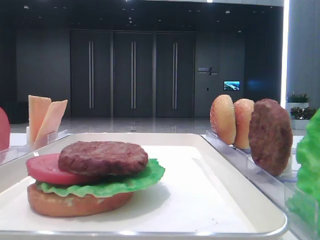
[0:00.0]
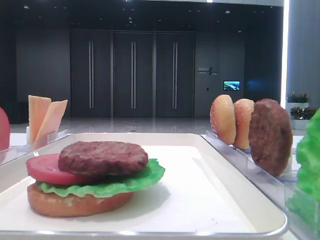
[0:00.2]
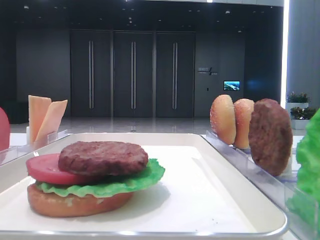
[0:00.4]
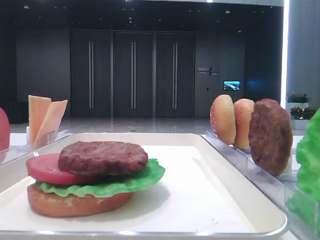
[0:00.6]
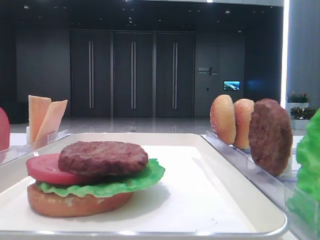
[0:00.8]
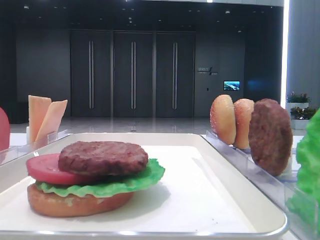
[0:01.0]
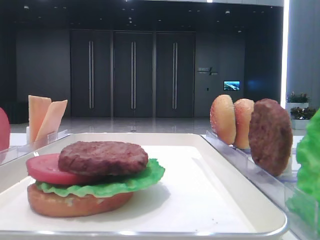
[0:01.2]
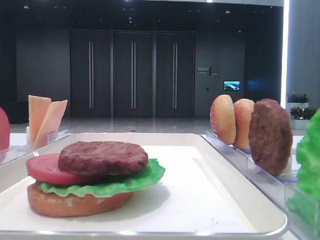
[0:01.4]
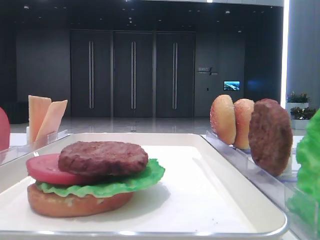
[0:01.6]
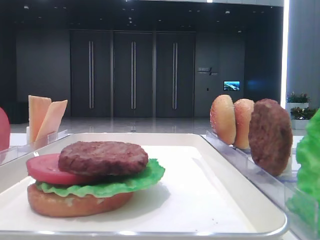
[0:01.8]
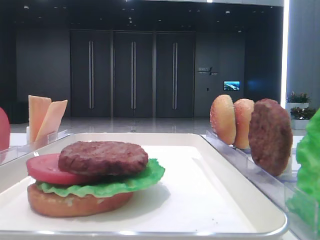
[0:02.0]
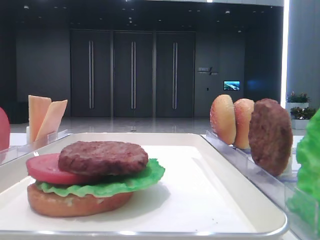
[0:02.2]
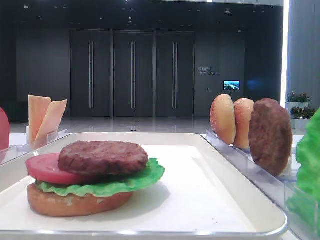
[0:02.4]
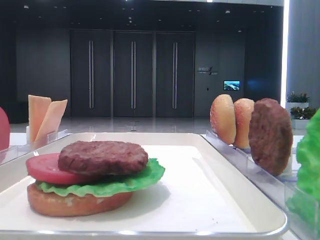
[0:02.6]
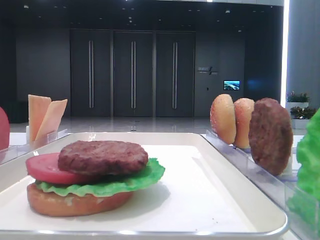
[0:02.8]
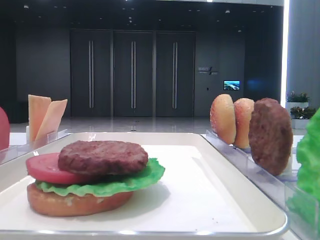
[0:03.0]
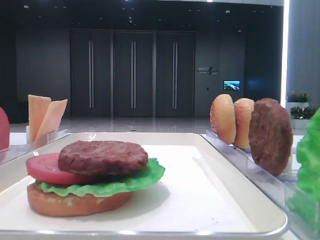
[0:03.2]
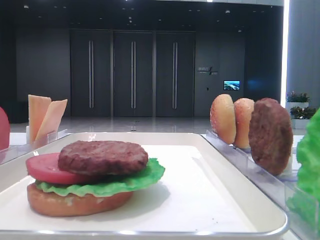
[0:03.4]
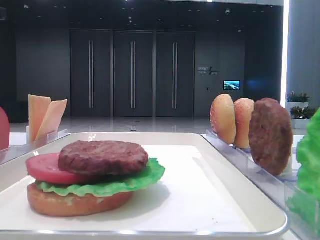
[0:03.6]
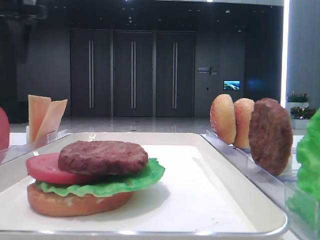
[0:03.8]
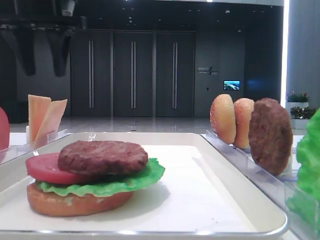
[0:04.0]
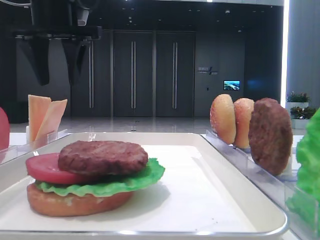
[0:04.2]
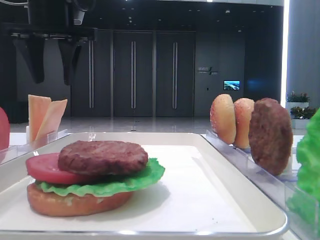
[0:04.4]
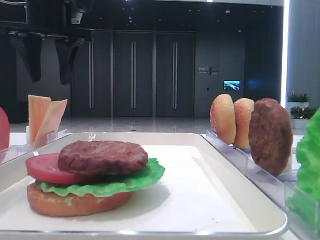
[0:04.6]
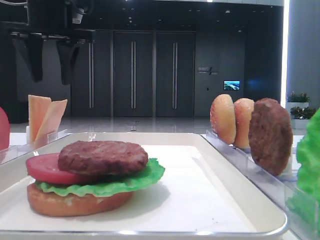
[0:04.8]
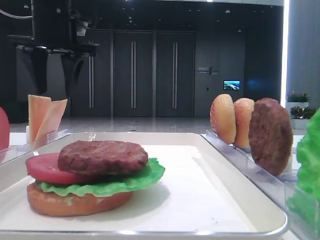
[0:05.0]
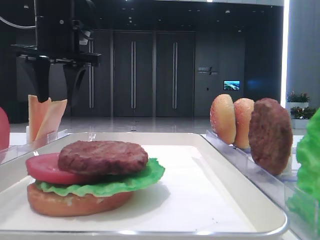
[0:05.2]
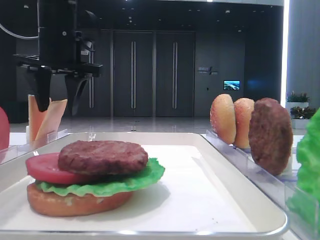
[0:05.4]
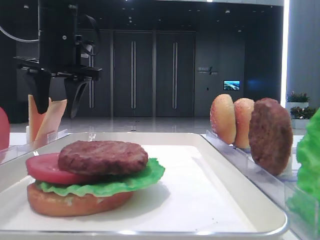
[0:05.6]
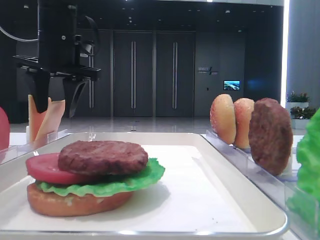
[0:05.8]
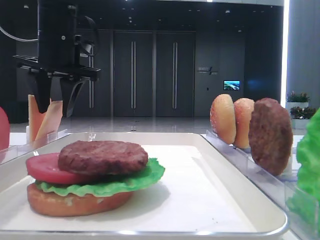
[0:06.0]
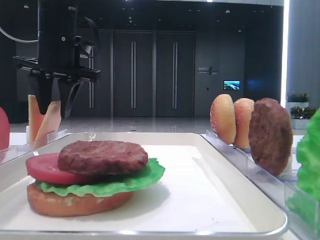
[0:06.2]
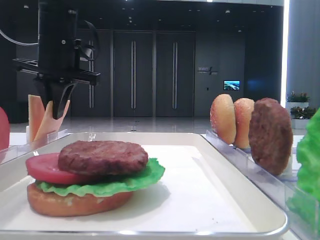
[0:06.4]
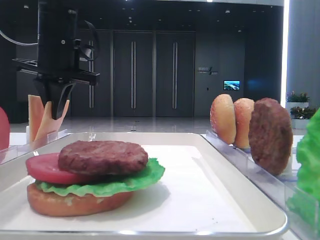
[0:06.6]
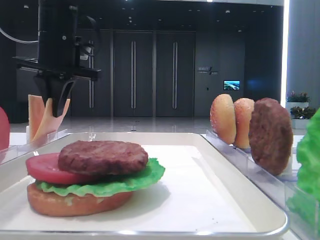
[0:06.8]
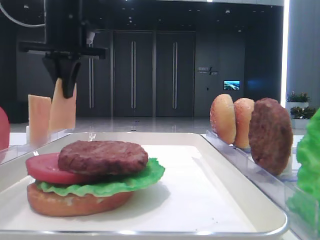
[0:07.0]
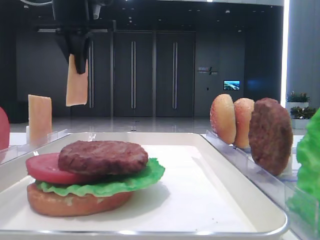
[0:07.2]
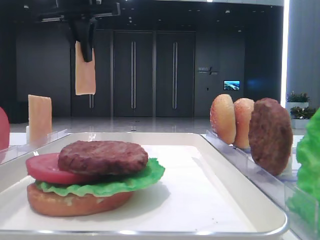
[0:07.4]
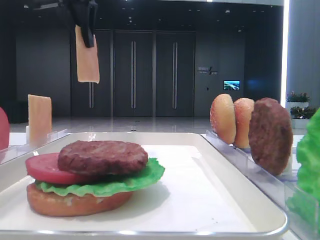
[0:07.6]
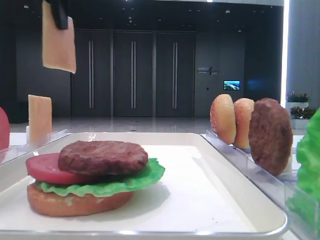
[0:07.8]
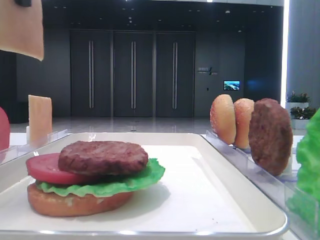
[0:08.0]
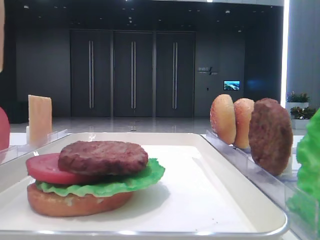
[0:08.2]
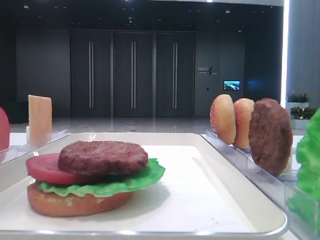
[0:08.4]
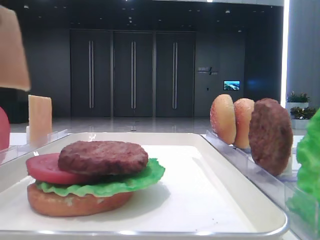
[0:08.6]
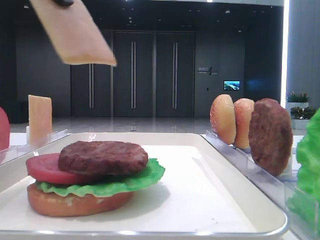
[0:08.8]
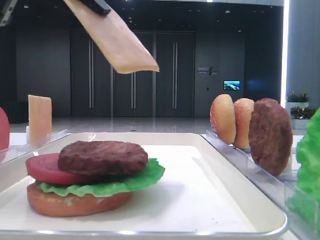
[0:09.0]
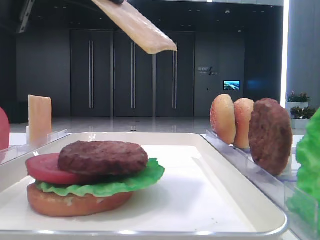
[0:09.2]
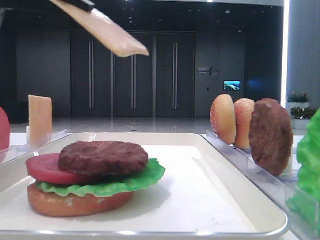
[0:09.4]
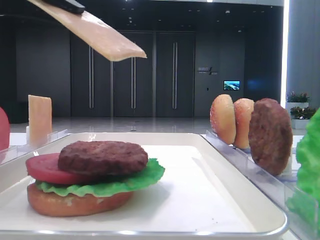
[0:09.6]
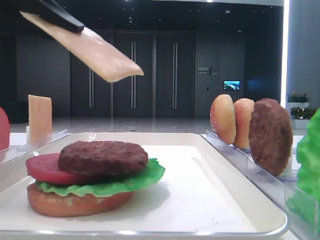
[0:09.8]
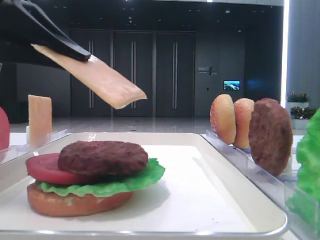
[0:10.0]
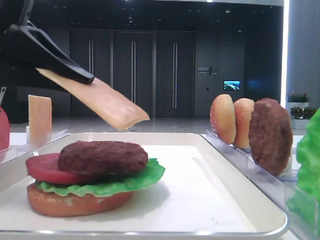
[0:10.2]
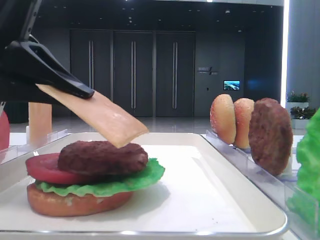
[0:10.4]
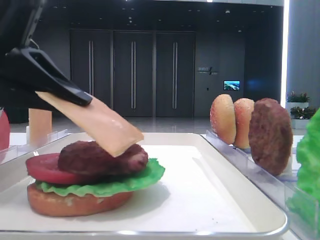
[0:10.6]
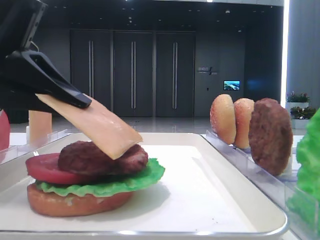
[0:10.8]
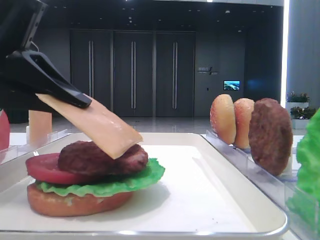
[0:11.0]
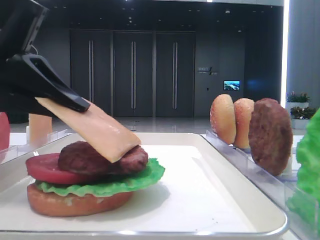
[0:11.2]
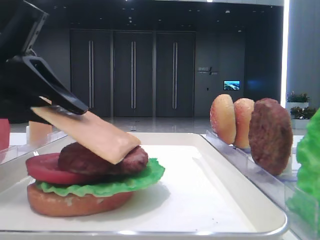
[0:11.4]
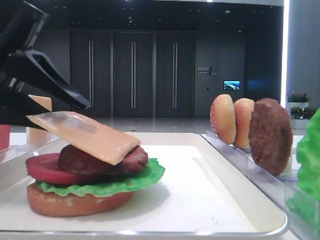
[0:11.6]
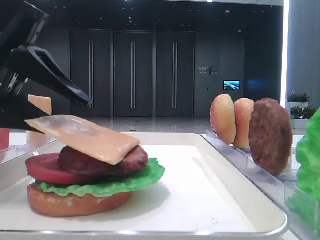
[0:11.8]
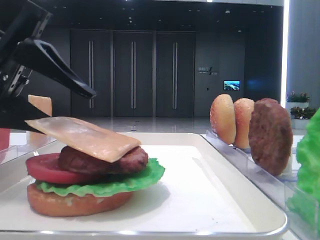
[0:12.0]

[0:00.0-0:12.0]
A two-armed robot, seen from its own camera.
Step, 0:00.0 to 0:06.6: Pick up the cheese slice with the left hand.
0:01.6 to 0:03.0: The left gripper travels forward by some 40 cm.
0:03.0 to 0:04.4: The left gripper goes approximately 15 cm to the right.
0:04.4 to 0:06.0: The left gripper travels downward by about 5 cm.
0:06.0 to 0:07.6: The left gripper goes roughly 10 cm upward, and closes up.
0:07.6 to 0:09.0: The left gripper is displaced backward by roughly 20 cm.
0:09.0 to 0:10.4: The left gripper shifts roughly 10 cm downward.
0:10.4 to 0:12.0: The left gripper opens.

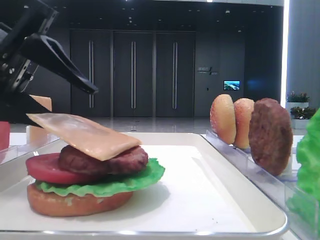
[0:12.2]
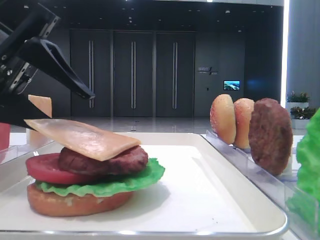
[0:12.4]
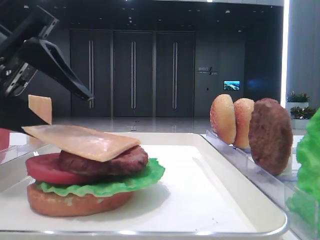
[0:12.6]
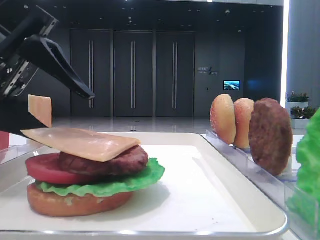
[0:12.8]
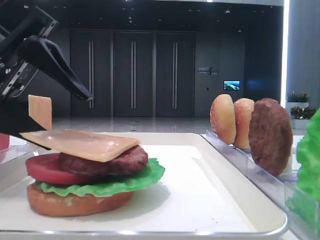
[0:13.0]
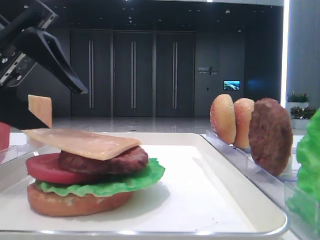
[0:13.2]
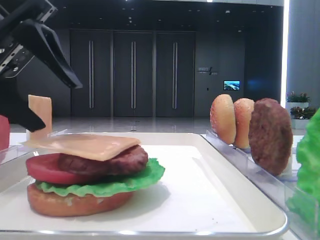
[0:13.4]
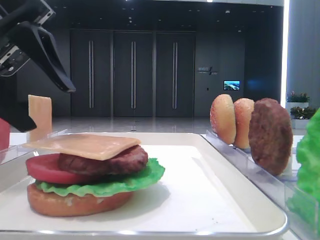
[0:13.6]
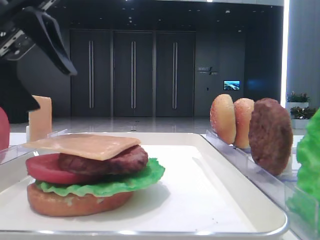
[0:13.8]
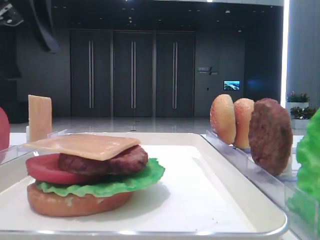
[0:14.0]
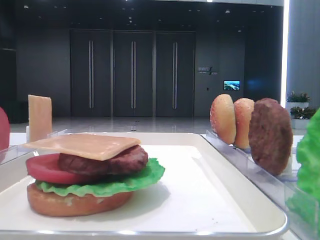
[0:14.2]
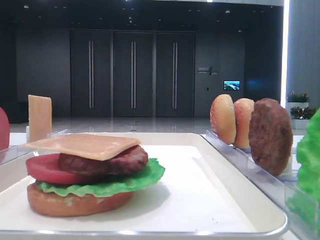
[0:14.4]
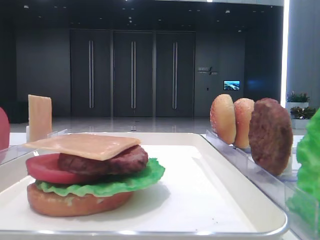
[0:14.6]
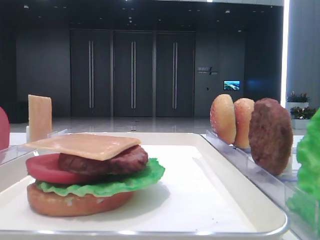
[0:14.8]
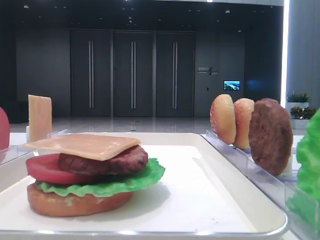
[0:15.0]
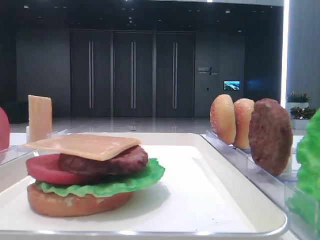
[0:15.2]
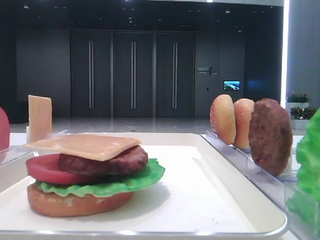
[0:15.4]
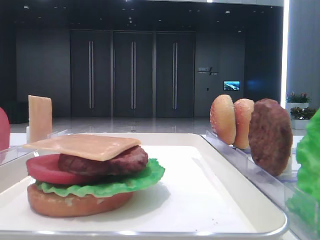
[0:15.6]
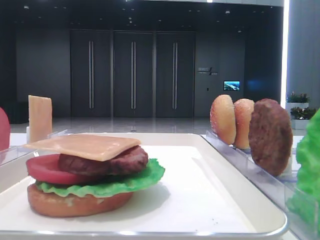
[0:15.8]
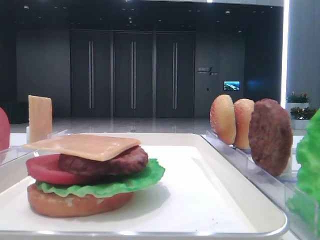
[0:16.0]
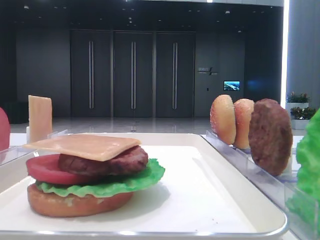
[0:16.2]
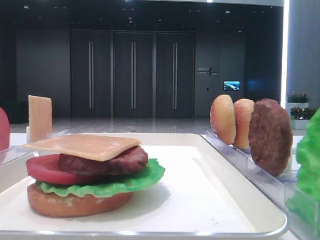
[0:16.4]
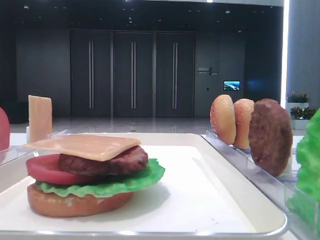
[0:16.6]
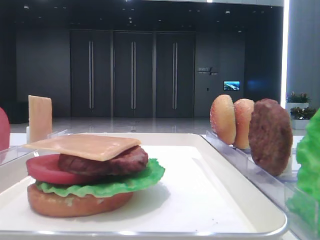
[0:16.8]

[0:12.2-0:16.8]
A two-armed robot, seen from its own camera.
0:12.2 to 0:13.8: The left gripper heads upward, covering about 5 cm.
0:13.8 to 0:15.2: The left gripper goes roughly 20 cm to the left, upward and backward.

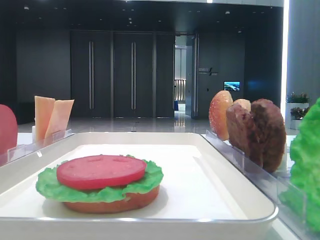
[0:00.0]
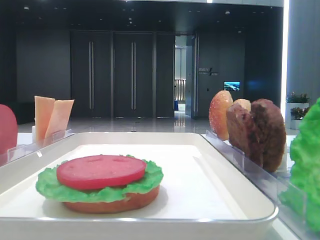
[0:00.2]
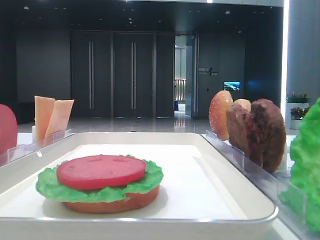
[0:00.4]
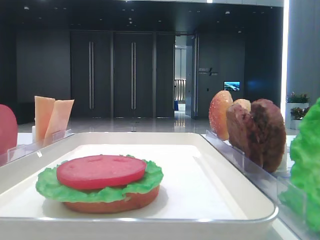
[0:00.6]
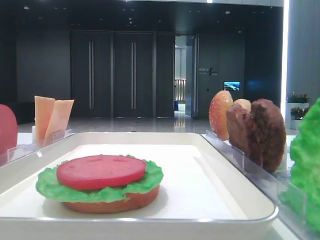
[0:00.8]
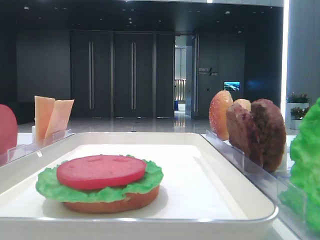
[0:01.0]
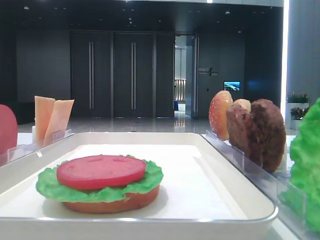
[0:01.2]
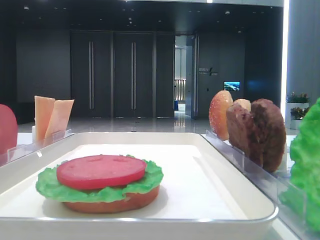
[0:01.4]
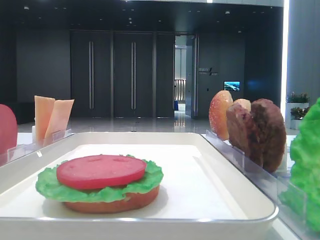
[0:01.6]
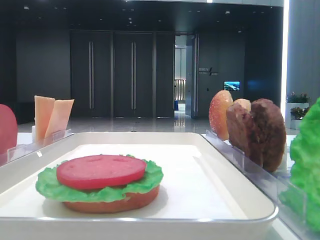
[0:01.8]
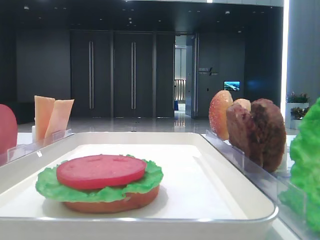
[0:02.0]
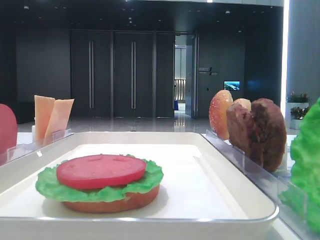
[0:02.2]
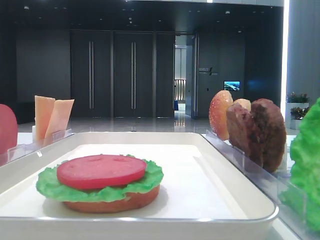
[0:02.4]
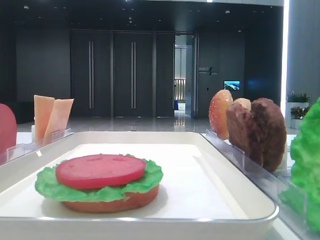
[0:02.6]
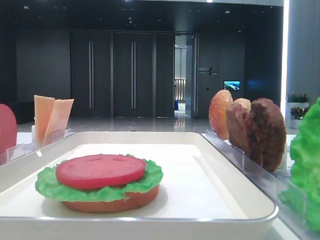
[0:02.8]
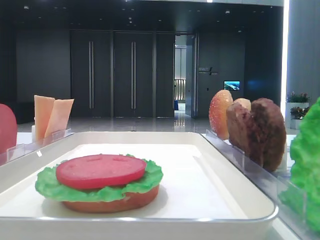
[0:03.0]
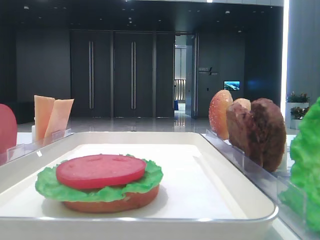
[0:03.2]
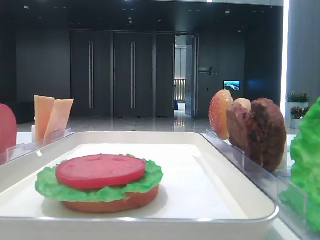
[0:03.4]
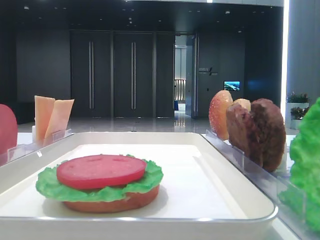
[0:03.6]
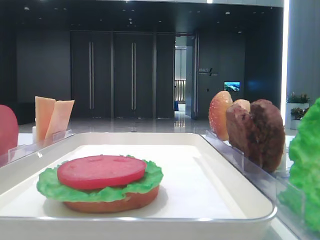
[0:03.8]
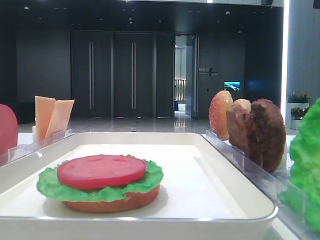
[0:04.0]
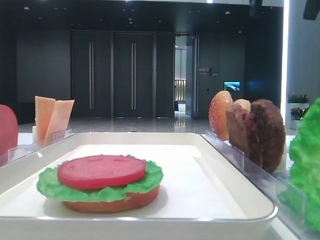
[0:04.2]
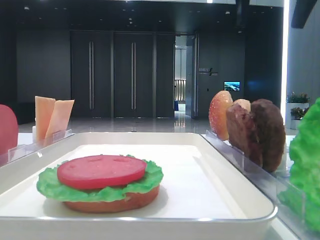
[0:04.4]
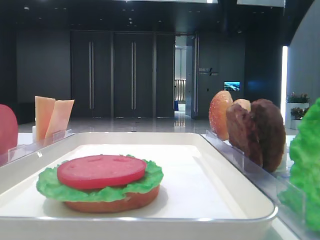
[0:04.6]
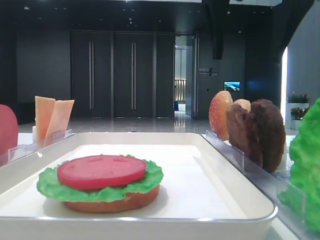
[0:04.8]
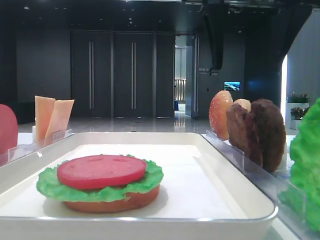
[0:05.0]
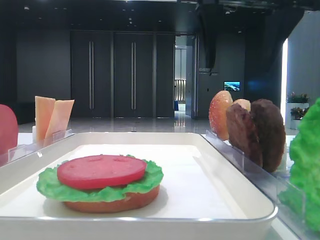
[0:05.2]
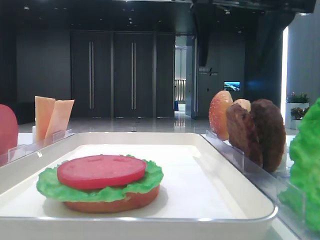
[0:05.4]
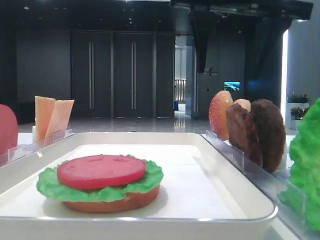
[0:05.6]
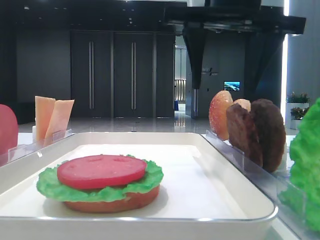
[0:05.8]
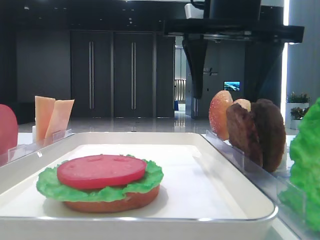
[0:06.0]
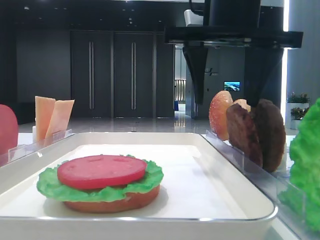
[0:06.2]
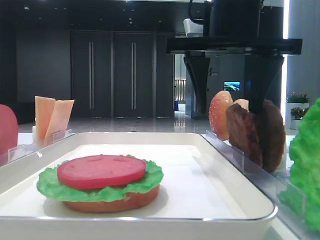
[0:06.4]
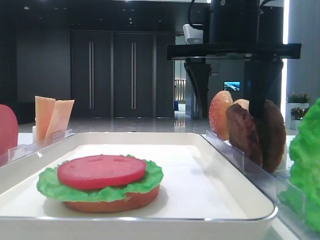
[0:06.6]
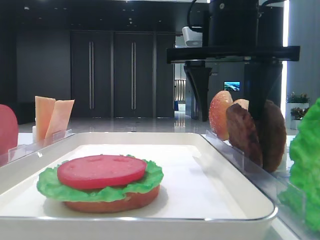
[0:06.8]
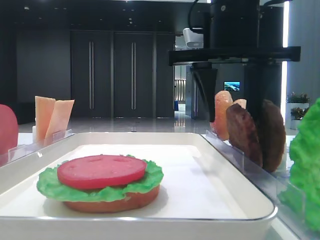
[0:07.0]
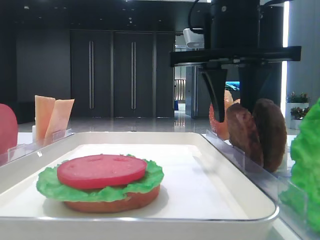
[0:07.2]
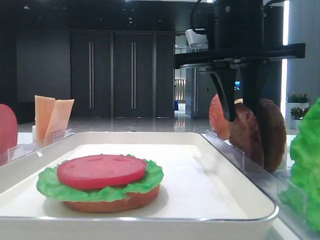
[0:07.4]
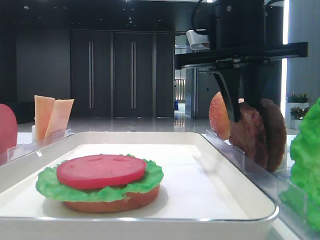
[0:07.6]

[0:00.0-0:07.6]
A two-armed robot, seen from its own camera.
Step, 0:00.0 to 0:07.6: Grab the patty with the right hand.
0:03.0 to 0:04.6: The right gripper heads to the left, covering some 20 cm.
0:04.6 to 0:06.0: The right gripper shifts roughly 5 cm downward.
0:06.0 to 0:07.6: The right gripper closes up.
